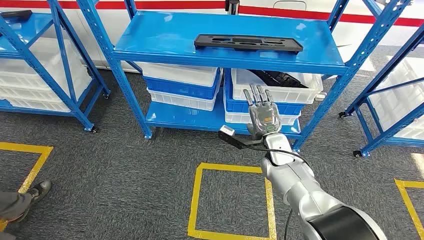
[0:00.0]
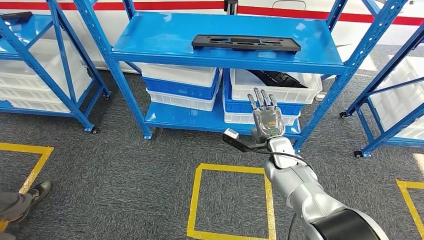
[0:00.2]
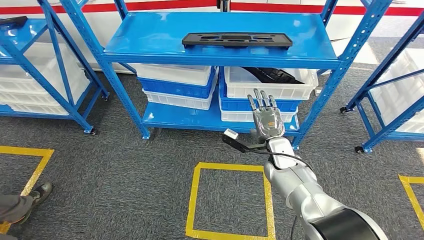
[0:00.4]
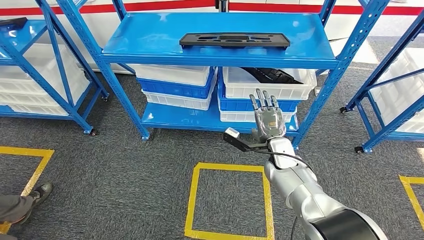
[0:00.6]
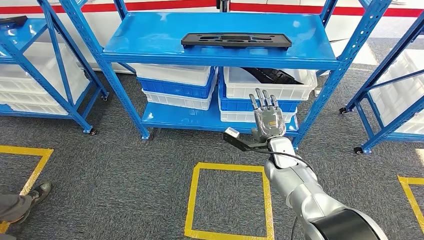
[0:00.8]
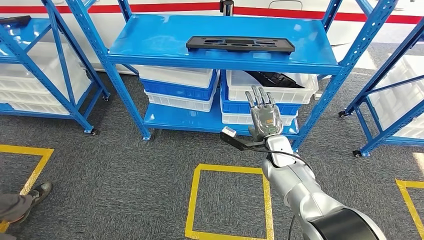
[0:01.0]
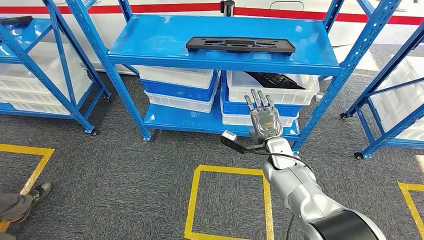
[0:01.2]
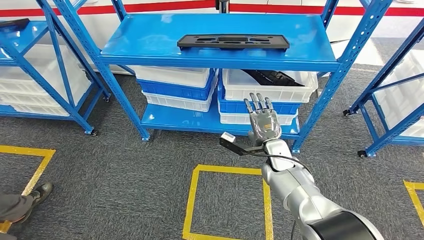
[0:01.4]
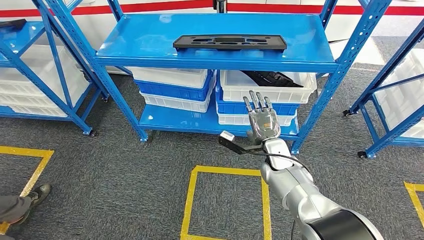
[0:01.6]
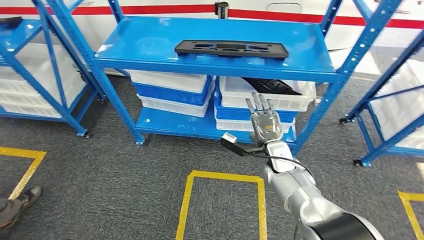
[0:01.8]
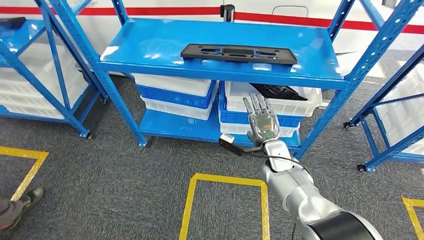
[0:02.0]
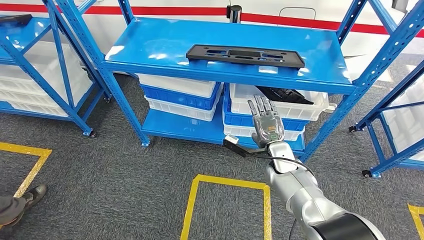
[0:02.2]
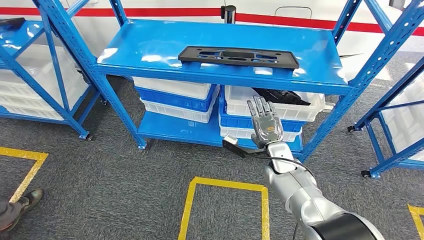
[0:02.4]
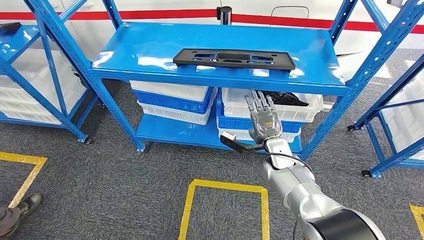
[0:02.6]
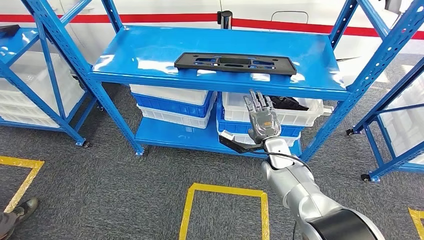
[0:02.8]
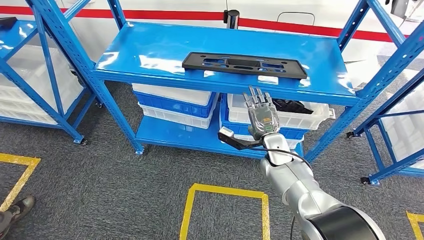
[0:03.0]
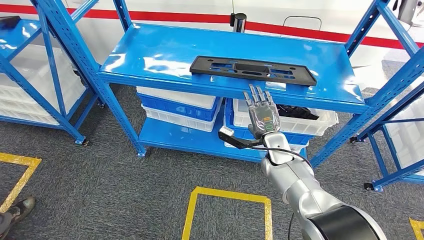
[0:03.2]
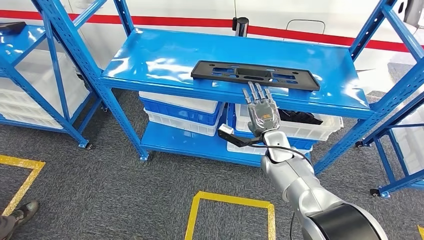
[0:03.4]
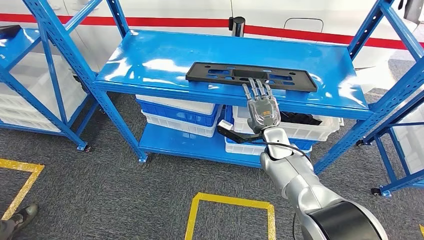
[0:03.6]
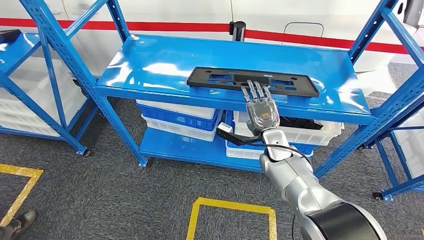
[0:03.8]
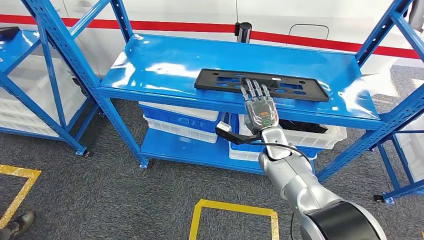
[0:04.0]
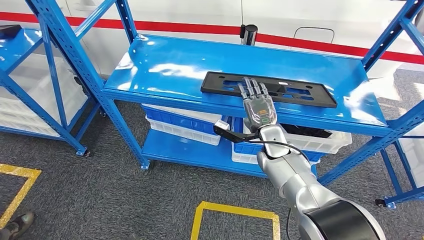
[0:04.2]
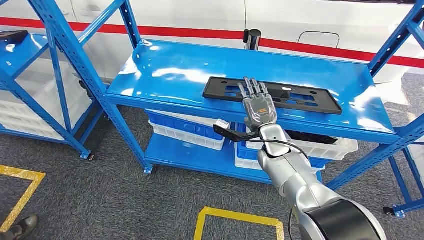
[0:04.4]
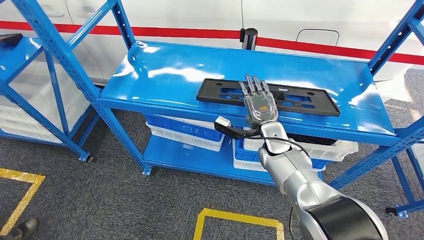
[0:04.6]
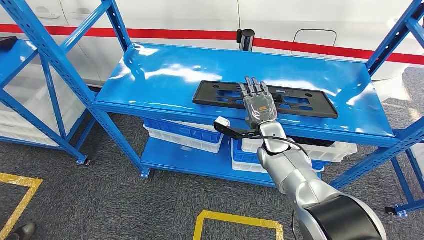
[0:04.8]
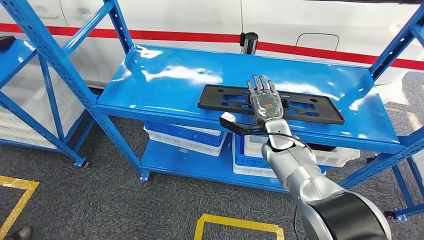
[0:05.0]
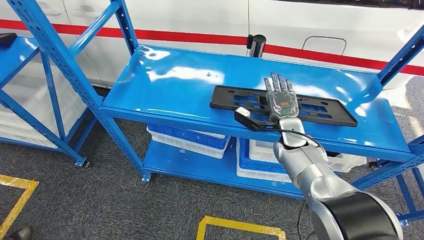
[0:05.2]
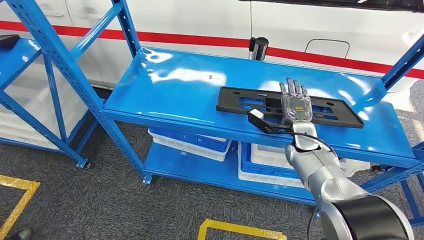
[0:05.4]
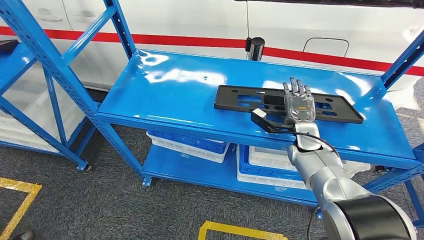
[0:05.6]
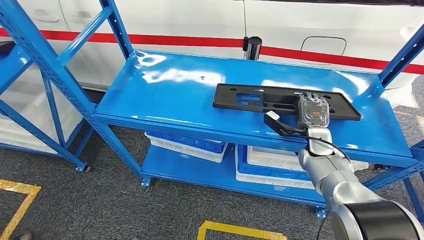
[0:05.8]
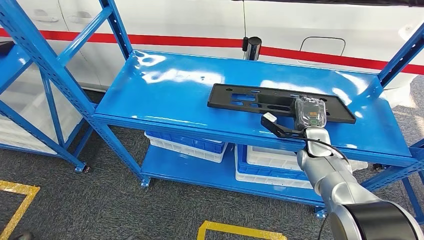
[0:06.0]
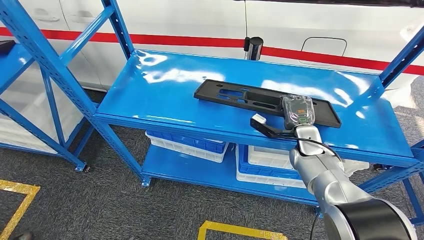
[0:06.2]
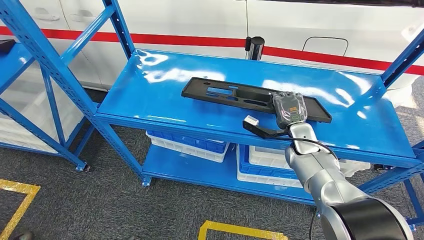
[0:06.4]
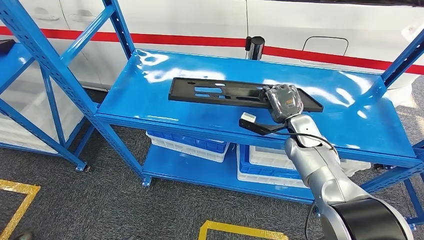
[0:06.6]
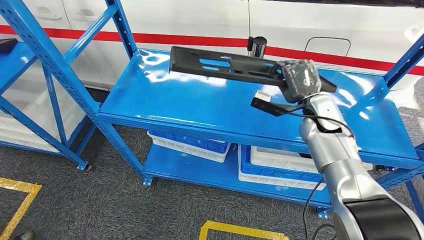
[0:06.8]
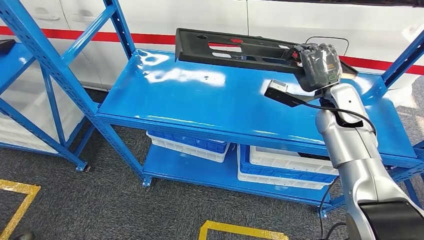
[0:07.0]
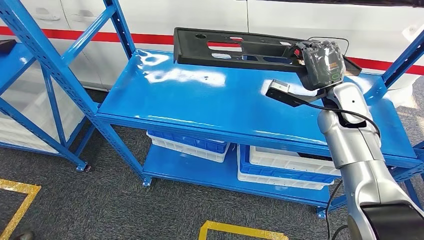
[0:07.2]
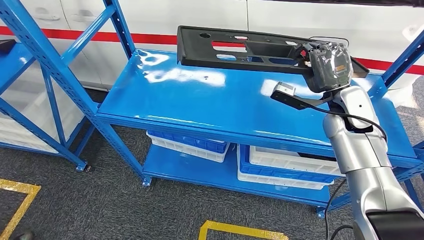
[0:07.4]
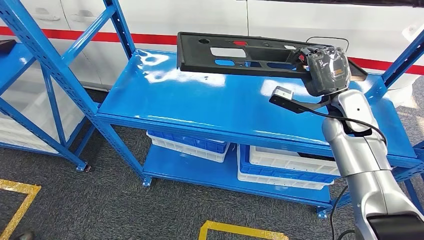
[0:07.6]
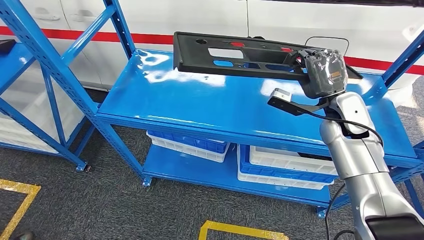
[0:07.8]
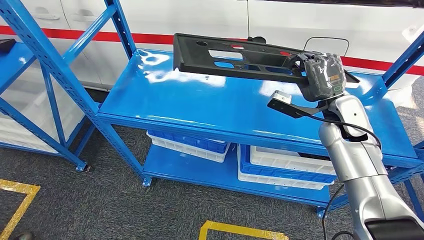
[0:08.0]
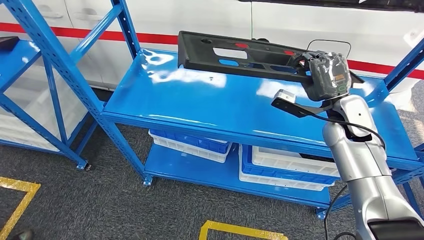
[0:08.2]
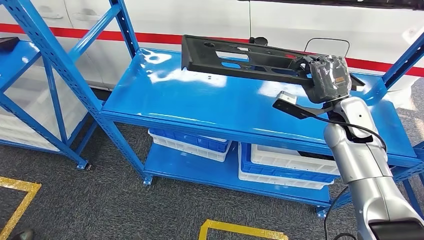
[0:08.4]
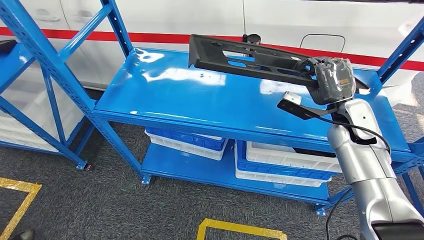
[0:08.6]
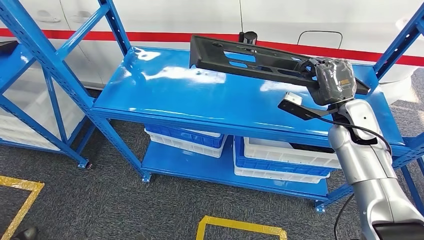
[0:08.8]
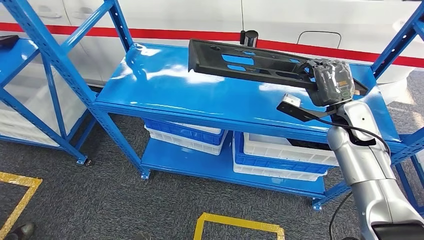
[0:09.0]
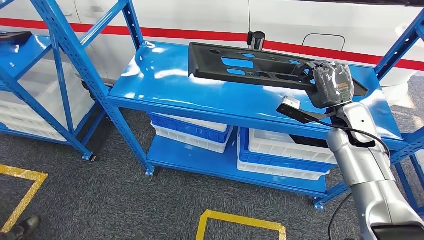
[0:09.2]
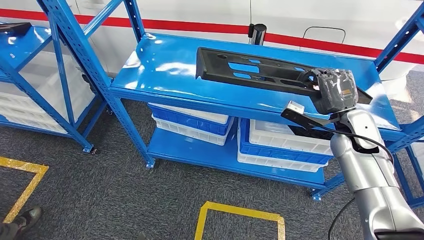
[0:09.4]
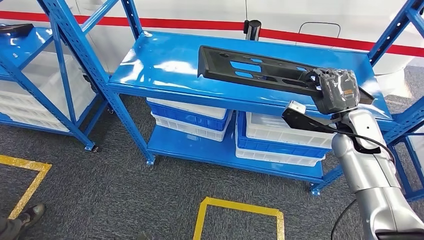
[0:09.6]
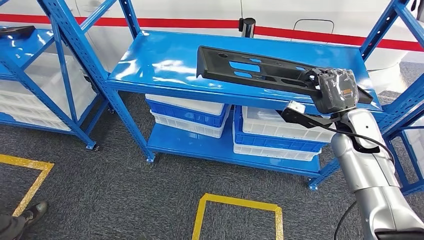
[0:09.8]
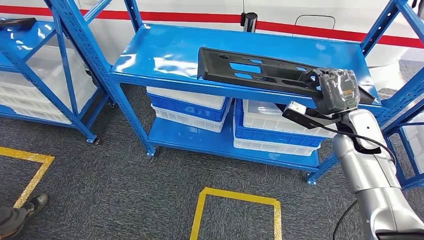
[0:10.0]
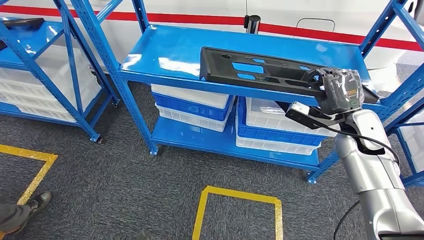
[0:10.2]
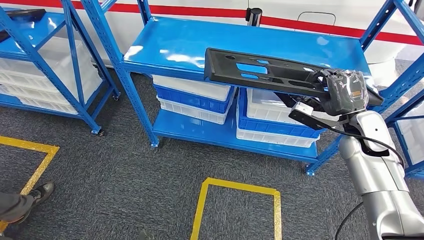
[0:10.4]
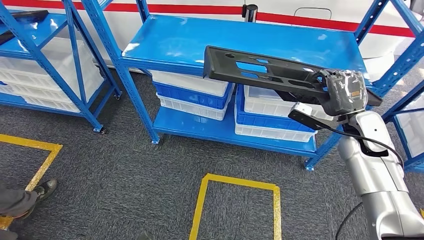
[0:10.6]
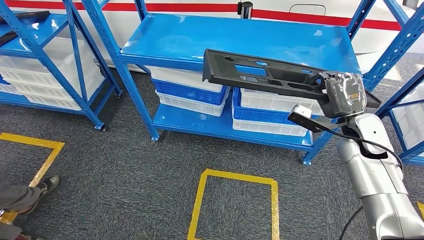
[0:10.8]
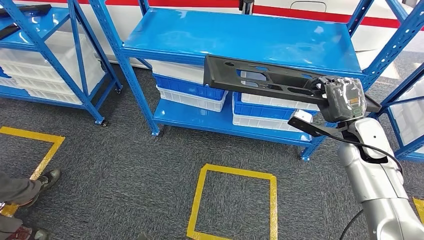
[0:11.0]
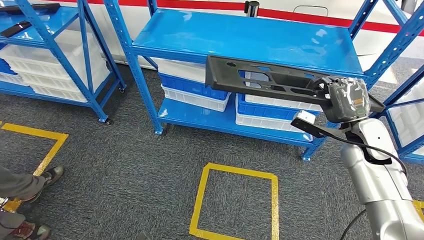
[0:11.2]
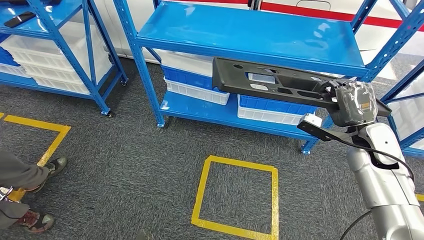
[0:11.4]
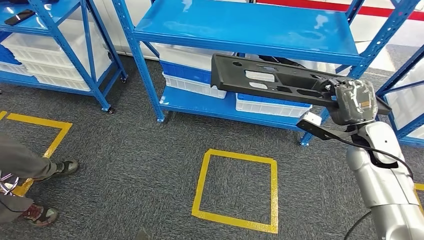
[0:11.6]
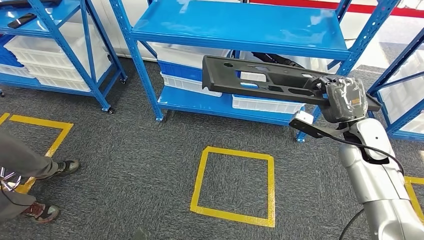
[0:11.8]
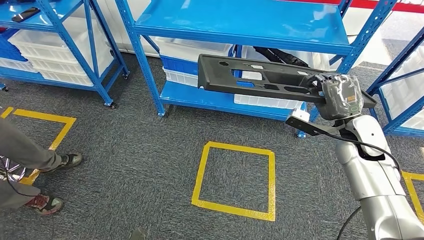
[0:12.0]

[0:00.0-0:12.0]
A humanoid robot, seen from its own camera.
Step, 0:00.0 to 0:07.6: Pick up the large material from the shelf.

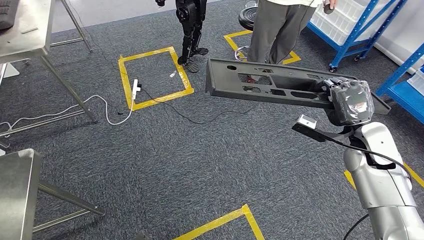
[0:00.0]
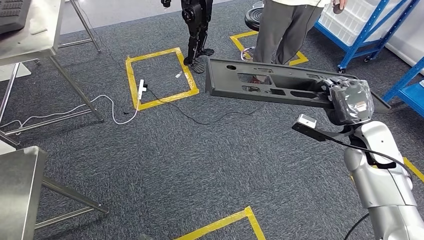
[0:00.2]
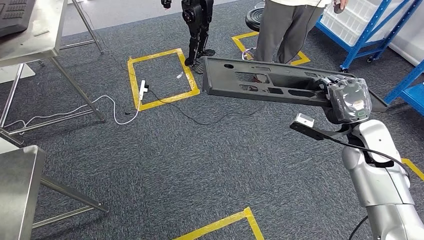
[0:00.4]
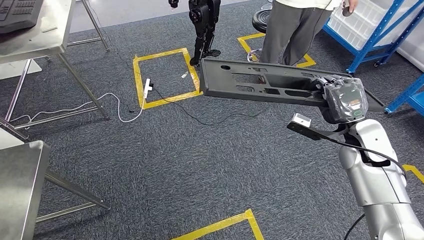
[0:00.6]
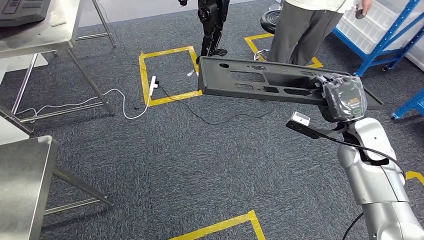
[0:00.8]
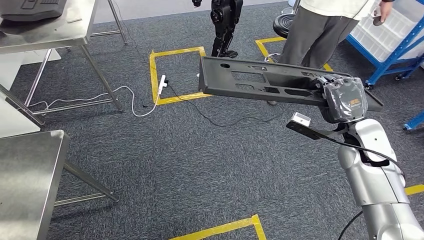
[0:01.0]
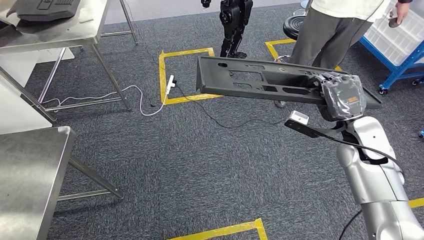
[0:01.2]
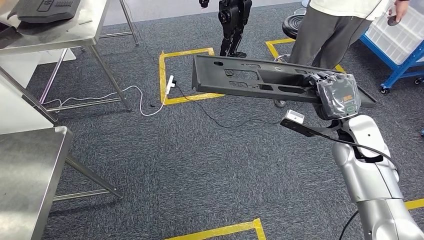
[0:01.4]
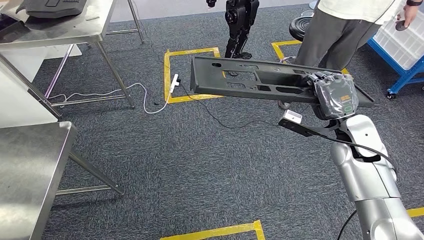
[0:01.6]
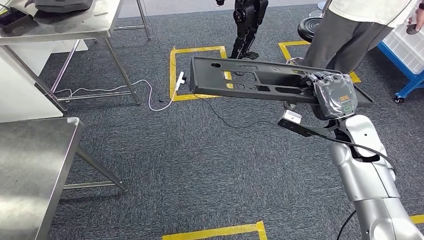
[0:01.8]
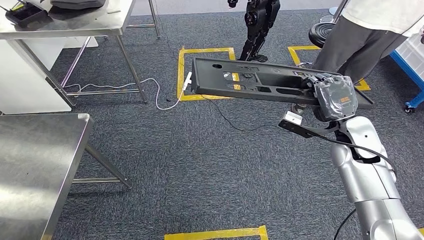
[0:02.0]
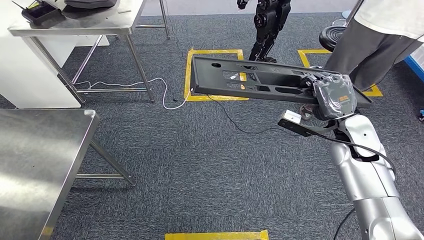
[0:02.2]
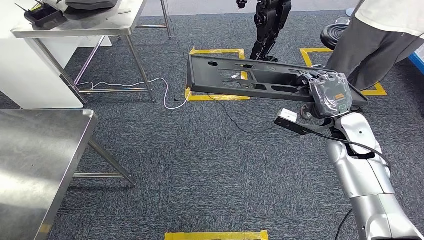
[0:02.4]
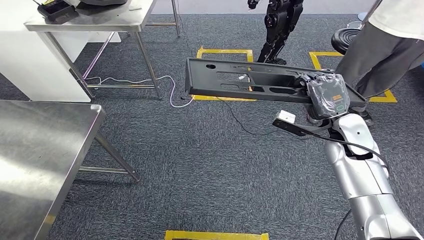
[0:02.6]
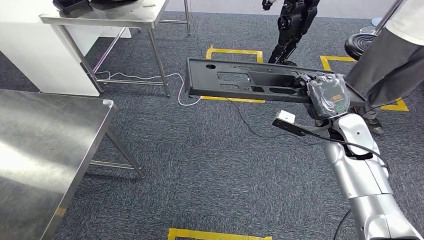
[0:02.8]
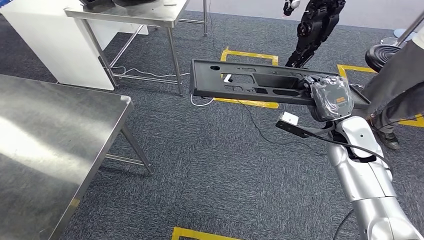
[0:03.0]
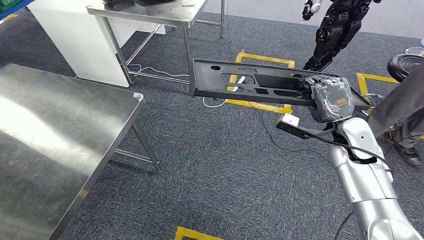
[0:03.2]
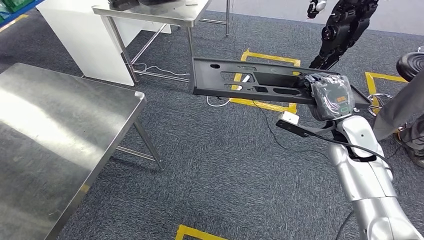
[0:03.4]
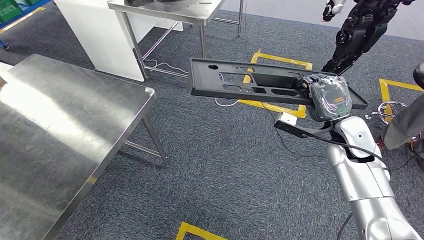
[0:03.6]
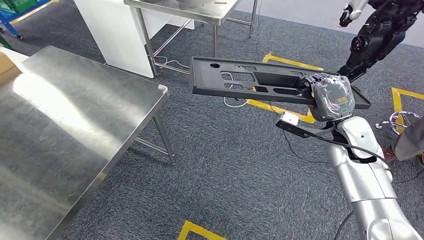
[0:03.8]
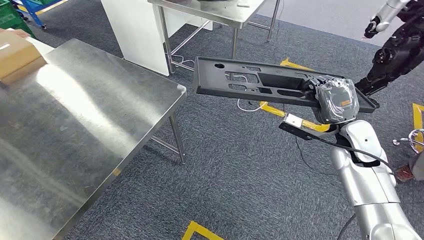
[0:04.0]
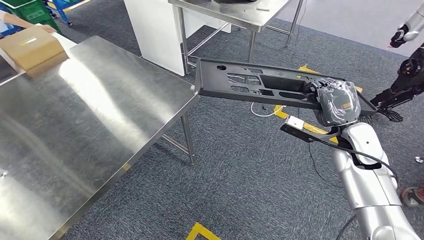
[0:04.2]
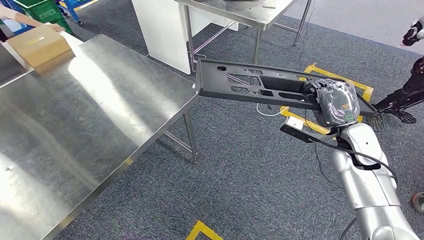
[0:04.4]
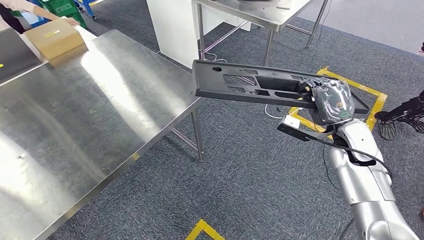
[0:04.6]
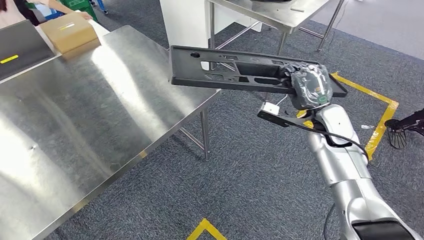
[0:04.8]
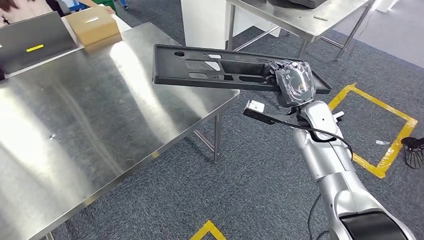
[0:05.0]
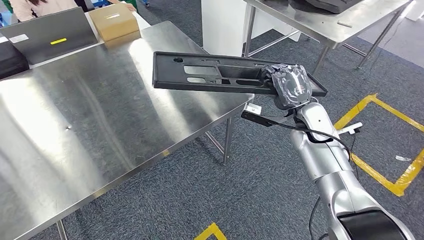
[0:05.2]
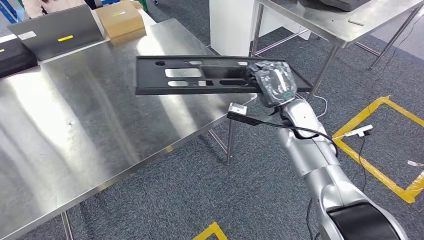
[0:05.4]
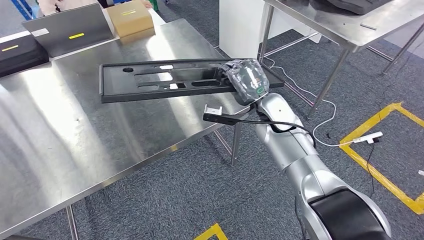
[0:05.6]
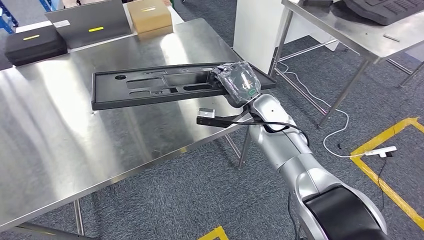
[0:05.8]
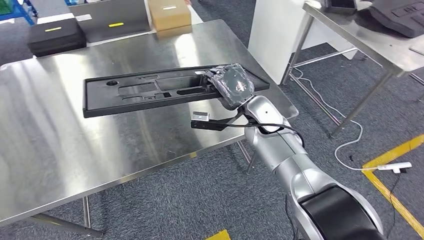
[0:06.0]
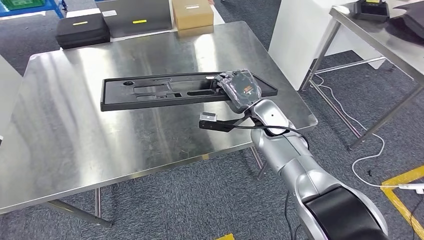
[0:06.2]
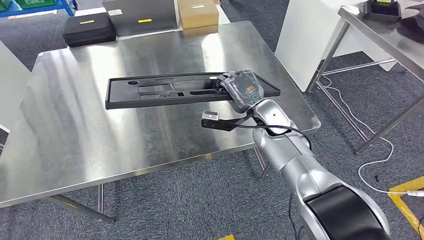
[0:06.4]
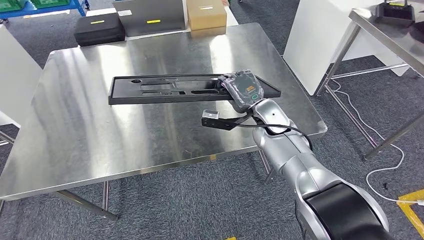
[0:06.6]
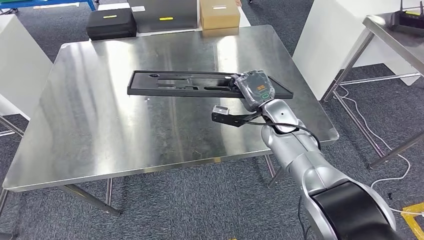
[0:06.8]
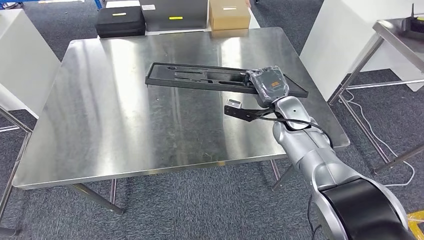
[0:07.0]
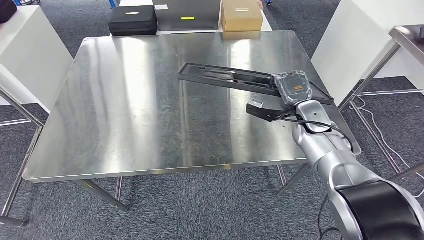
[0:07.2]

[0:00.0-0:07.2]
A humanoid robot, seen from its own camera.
Step, 0:00.0 to 0:05.2: Move the large material to the workbench.
